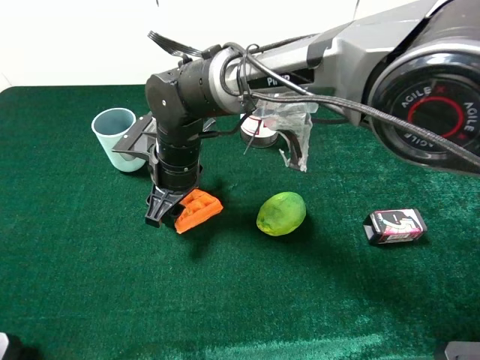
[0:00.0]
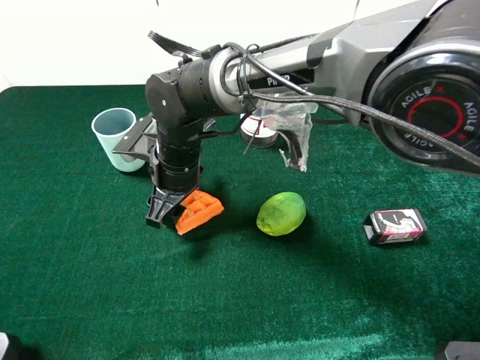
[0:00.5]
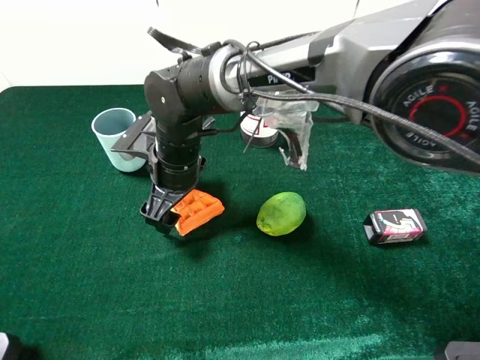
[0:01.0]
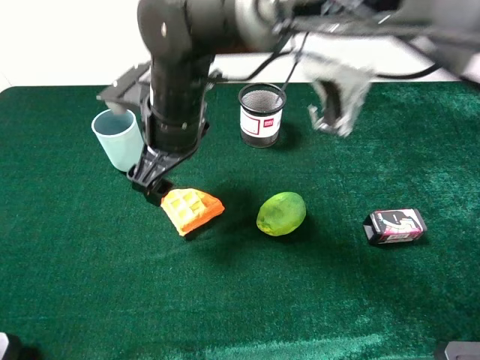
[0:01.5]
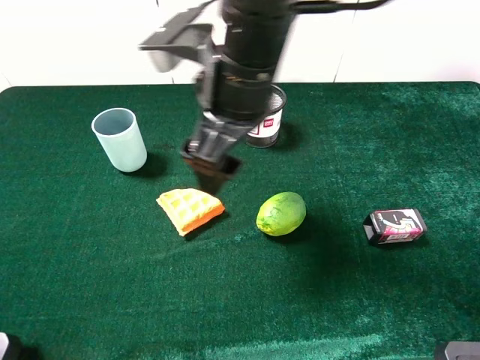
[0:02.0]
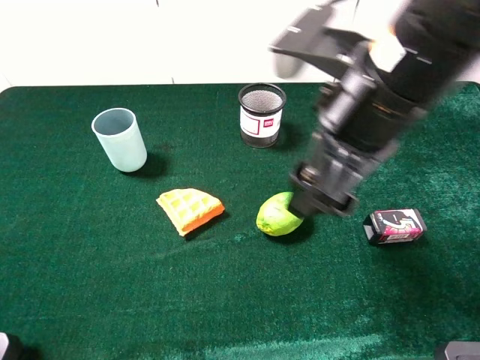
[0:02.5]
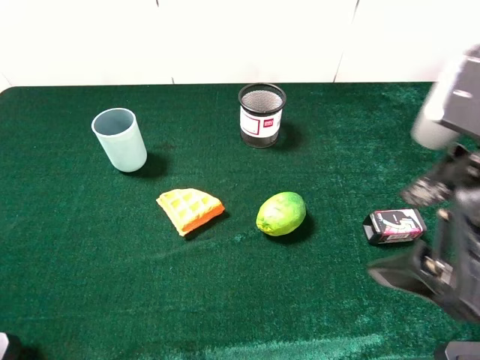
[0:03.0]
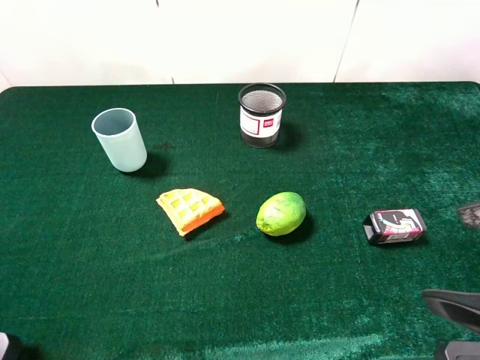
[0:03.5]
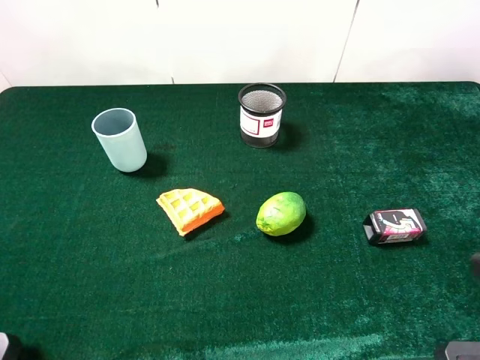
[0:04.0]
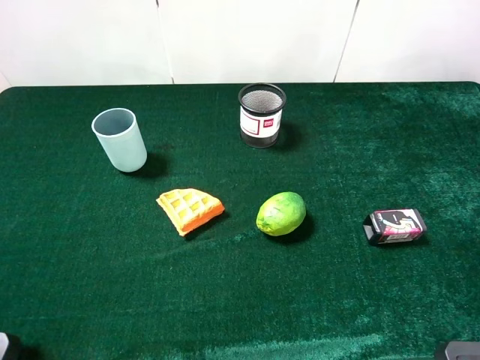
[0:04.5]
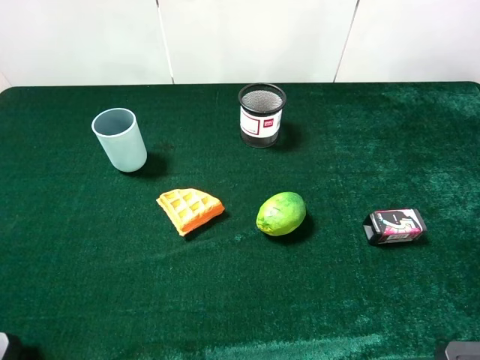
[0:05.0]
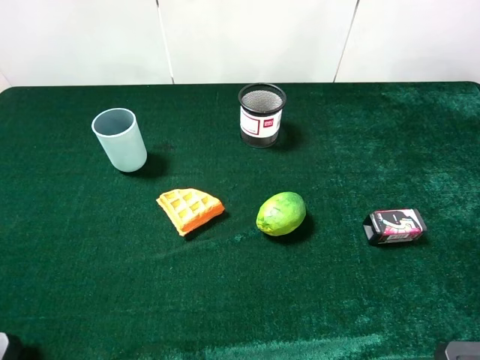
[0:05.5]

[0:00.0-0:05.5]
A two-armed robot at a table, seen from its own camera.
Task of the whole recording: the gripper move the object.
0:00.0 to 0:02.0: The right gripper goes approximately 20 cm upward and to the right, and opens.
0:02.0 to 0:03.5: The right gripper is displaced to the right and backward by about 30 cm.
0:03.5 to 0:05.5: The right gripper goes roughly 5 cm to the right.

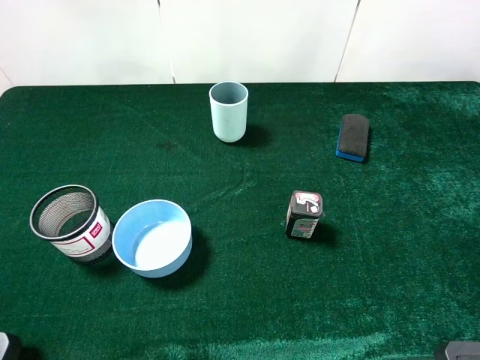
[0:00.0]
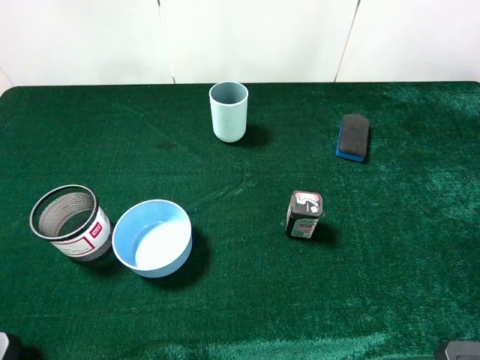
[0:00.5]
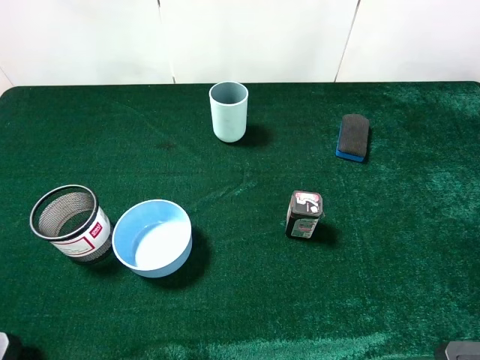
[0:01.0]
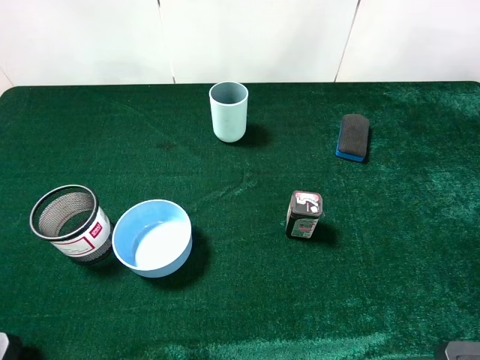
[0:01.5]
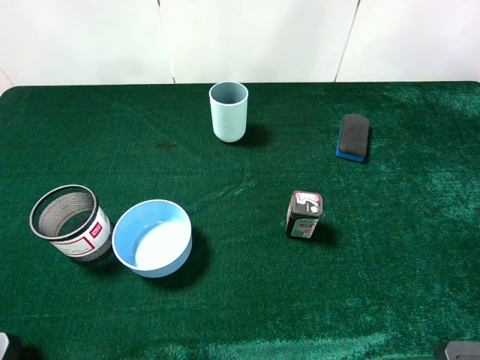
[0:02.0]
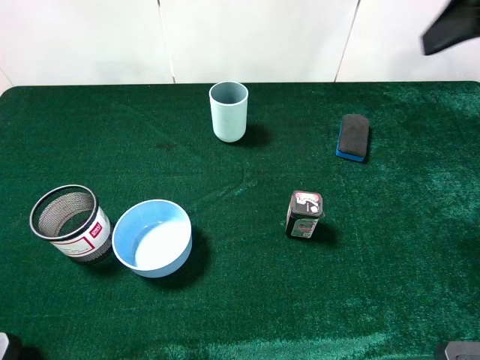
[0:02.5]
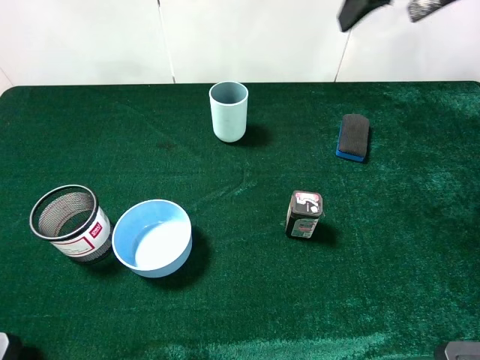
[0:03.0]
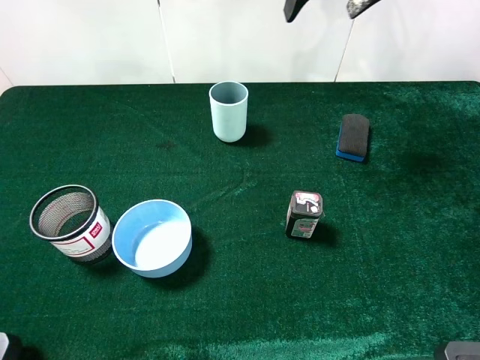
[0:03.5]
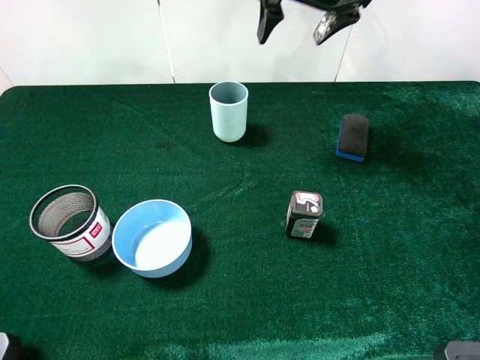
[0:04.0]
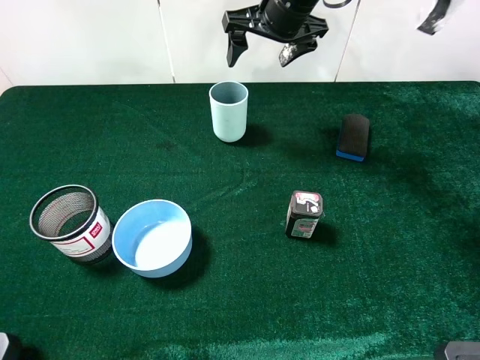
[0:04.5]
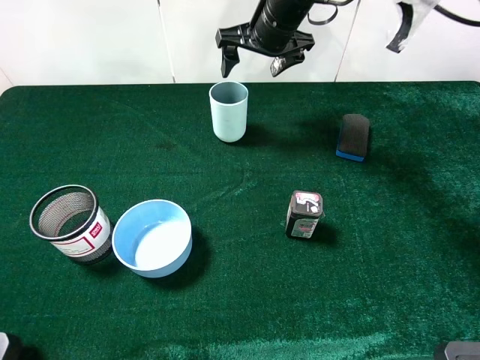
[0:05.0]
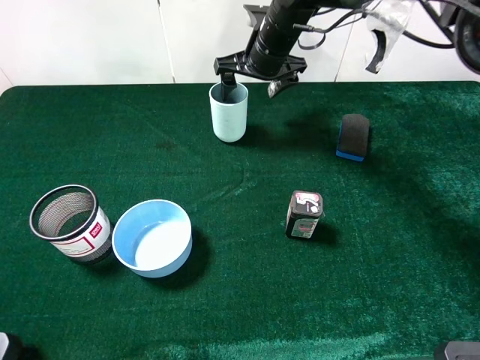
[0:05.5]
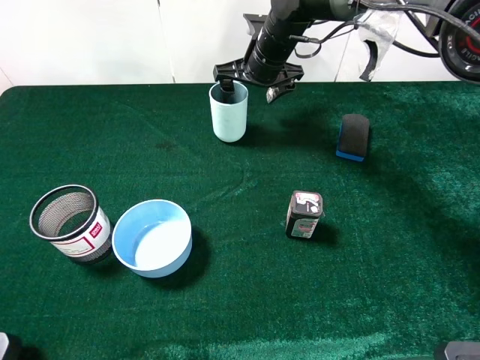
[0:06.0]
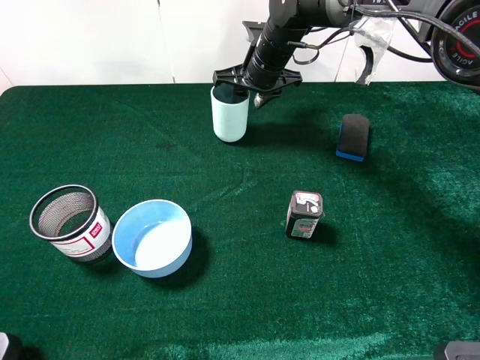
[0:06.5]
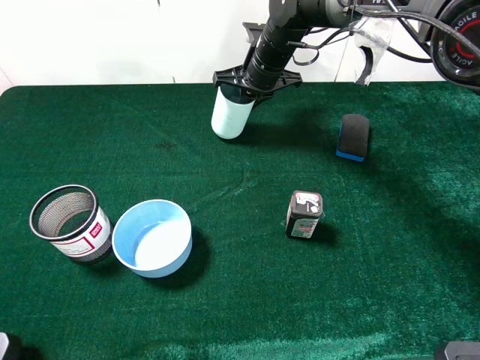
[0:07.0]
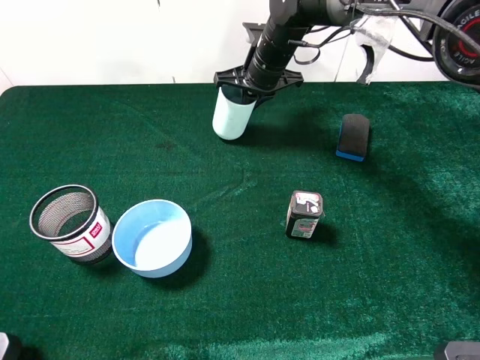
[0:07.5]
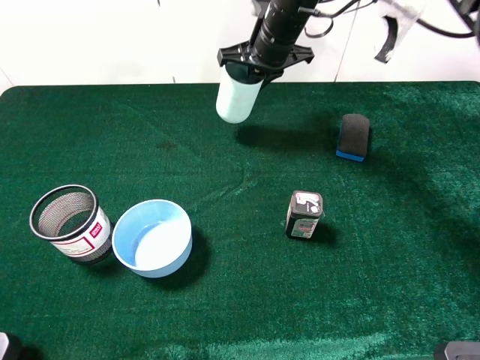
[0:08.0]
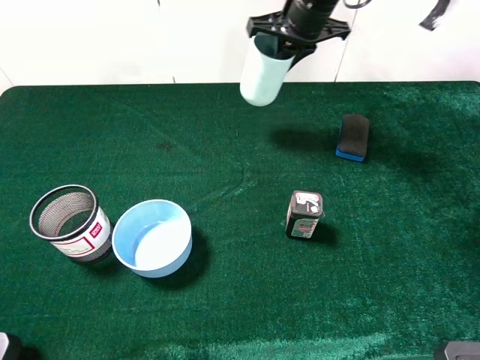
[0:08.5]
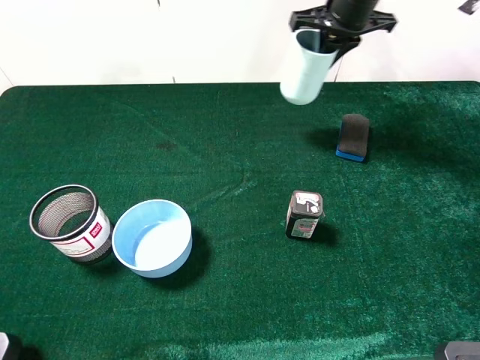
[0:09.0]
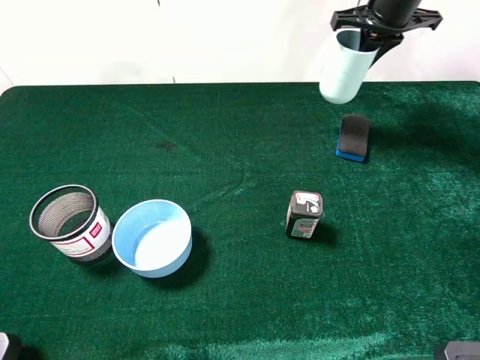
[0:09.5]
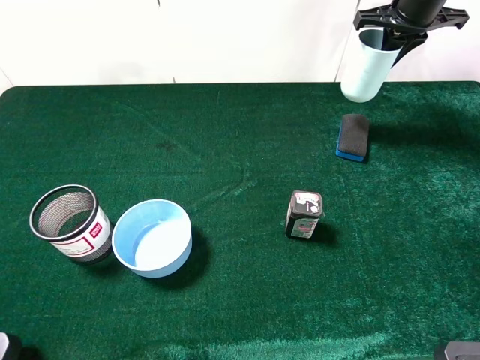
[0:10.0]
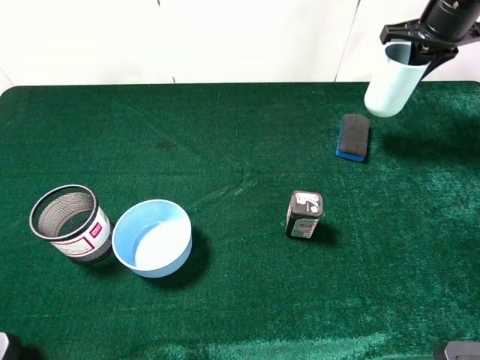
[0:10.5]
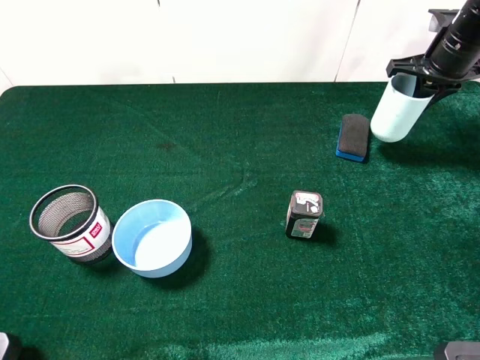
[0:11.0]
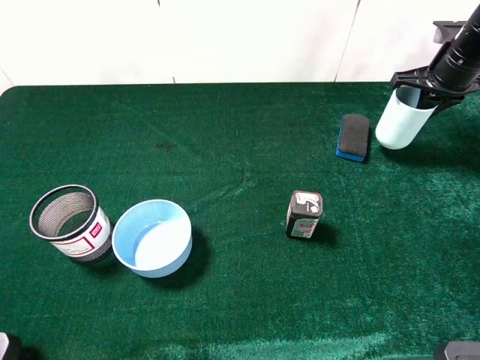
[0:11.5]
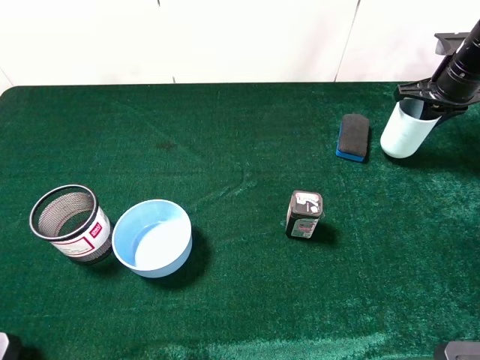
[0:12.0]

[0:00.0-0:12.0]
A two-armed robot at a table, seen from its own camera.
Task of the whole recording: the gripper move the object.
Step, 0:00.0 to 0:07.0: Grasp the cyan cup with the right gripper.
0:02.0 to 0:04.0: The right gripper is displaced forward and to the left by about 35 cm.
0:04.0 to 0:06.0: The right gripper is displaced downward and to the left by about 15 cm.
0:06.0 to 0:08.0: The right gripper closes.
0:08.0 to 0:10.0: The right gripper moves to the right, roughly 20 cm.
0:10.0 to 0:12.0: The right gripper goes about 15 cm downward, to the right and backward.

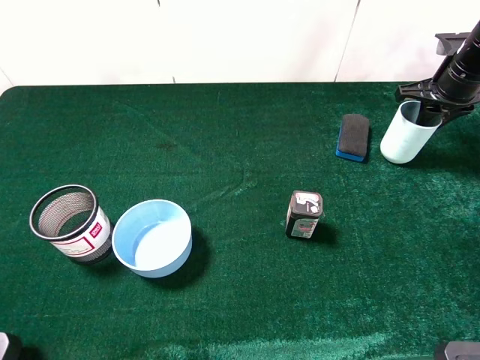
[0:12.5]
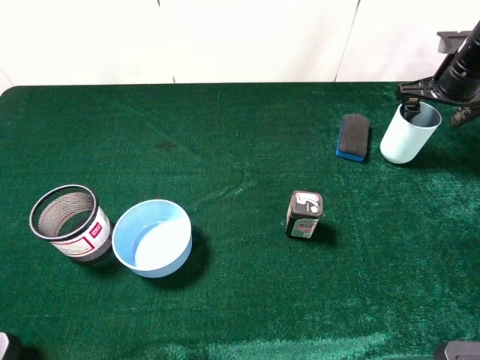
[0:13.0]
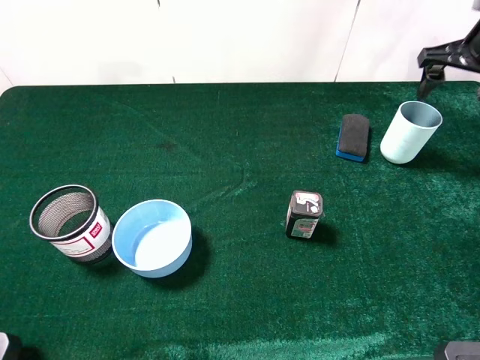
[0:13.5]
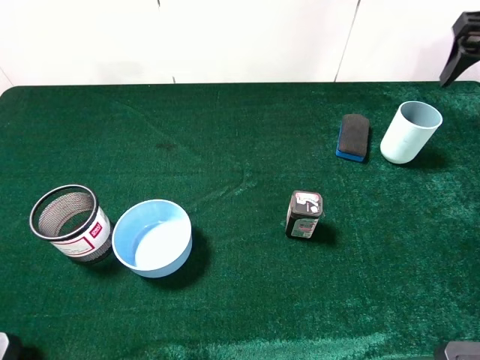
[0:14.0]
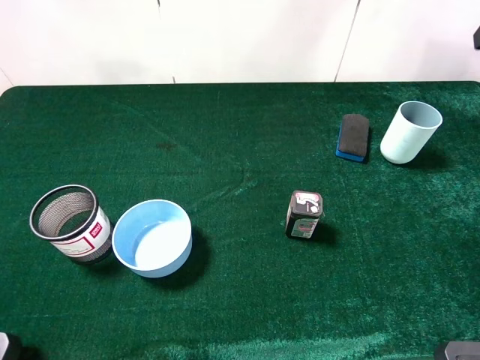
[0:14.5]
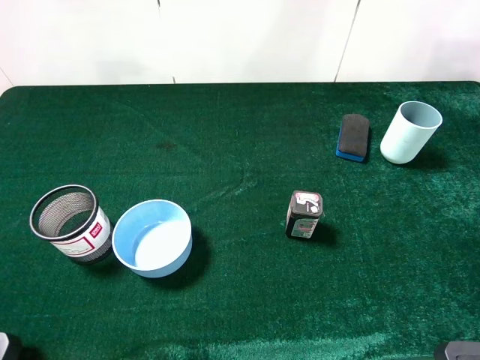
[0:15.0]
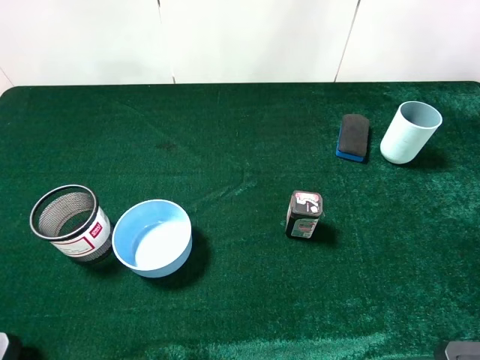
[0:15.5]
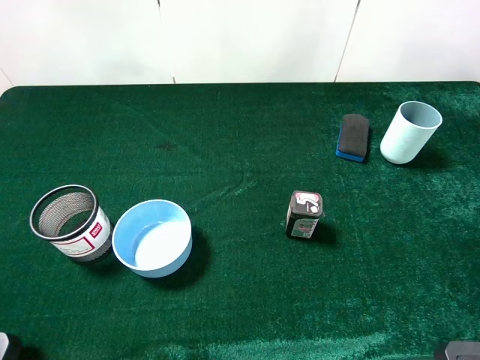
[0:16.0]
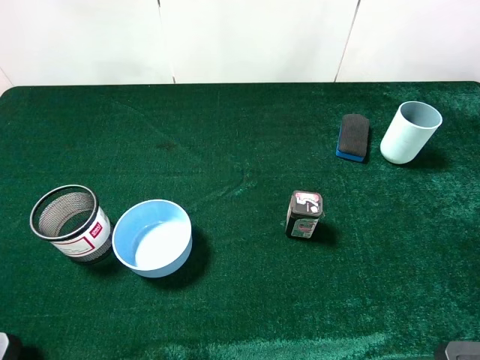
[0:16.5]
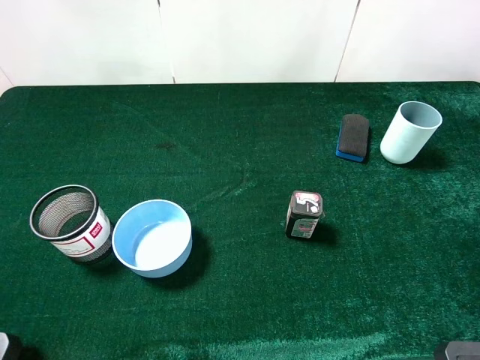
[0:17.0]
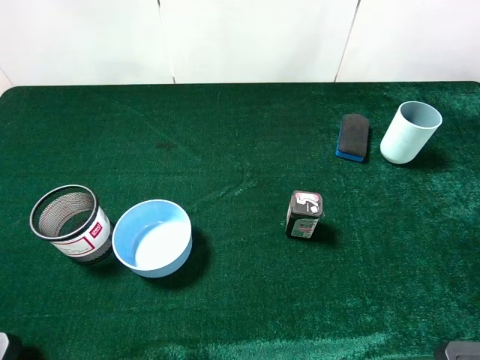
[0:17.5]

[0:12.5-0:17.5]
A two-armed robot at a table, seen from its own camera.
Task of the whole recording: the gripper move the object.
0:12.5 to 0:15.0: The right gripper shifts about 35 cm upward and backward, and opens.
